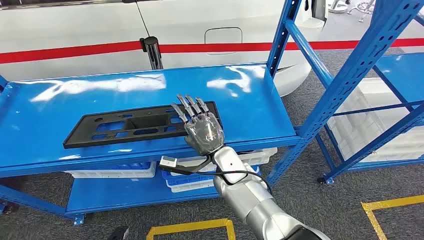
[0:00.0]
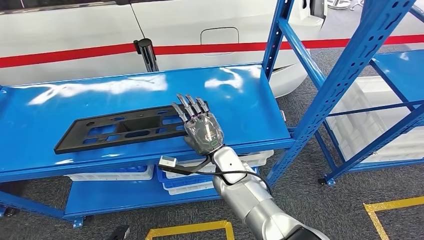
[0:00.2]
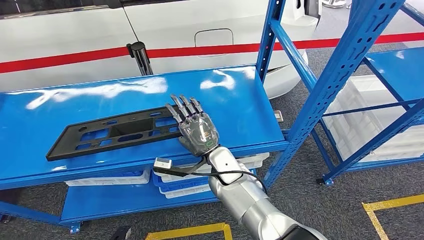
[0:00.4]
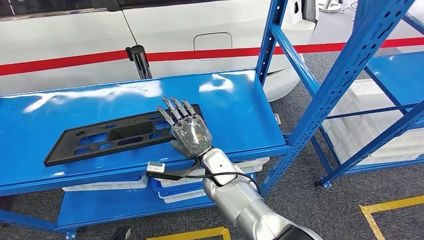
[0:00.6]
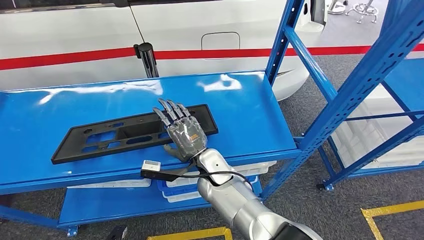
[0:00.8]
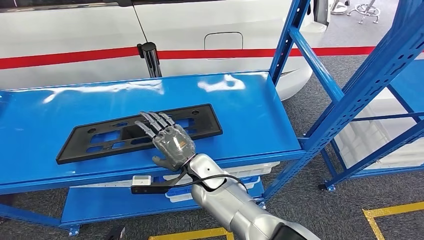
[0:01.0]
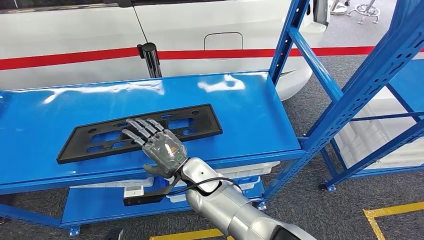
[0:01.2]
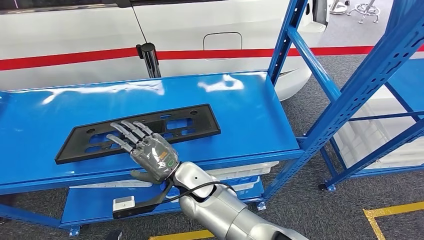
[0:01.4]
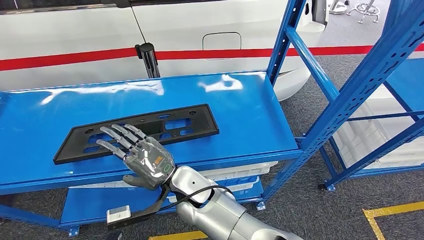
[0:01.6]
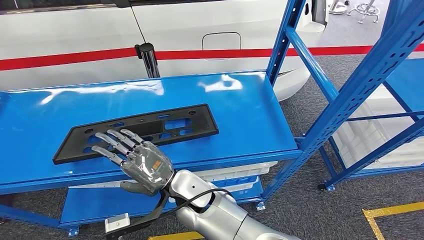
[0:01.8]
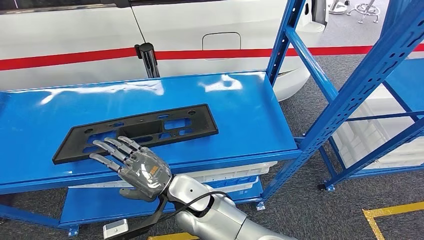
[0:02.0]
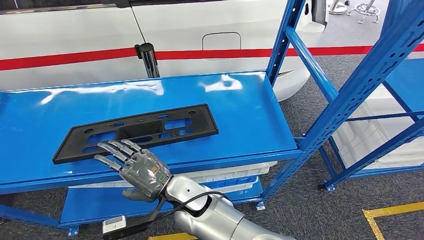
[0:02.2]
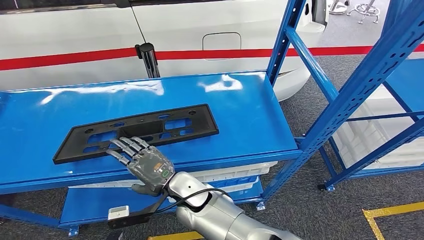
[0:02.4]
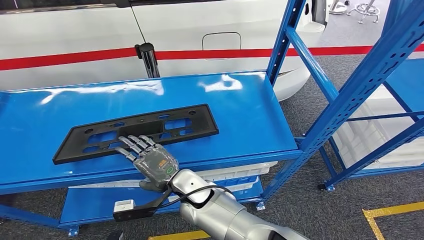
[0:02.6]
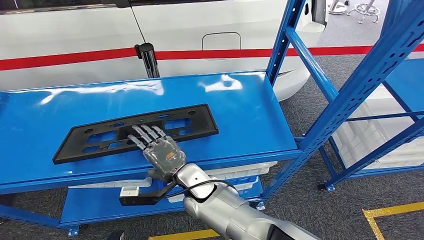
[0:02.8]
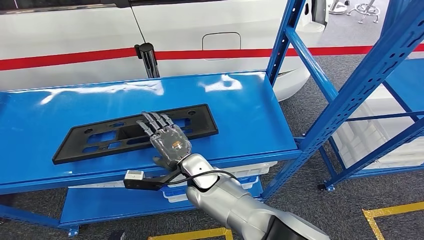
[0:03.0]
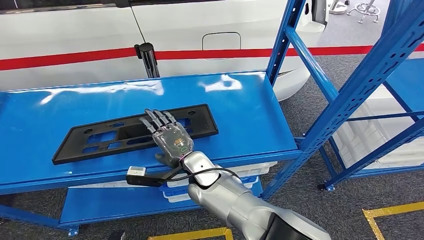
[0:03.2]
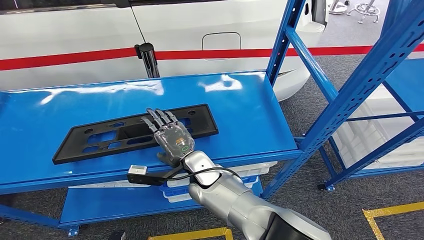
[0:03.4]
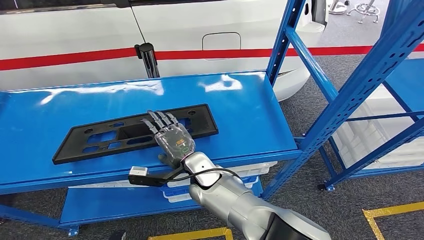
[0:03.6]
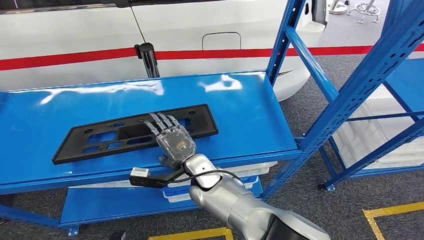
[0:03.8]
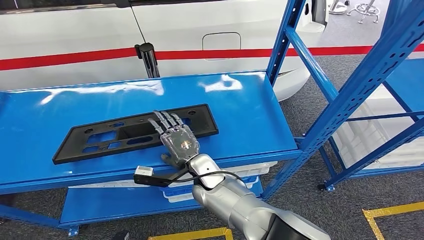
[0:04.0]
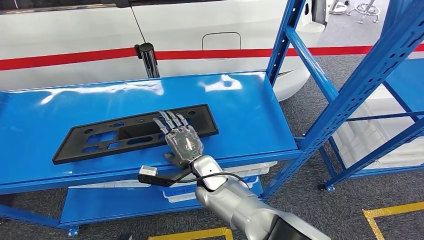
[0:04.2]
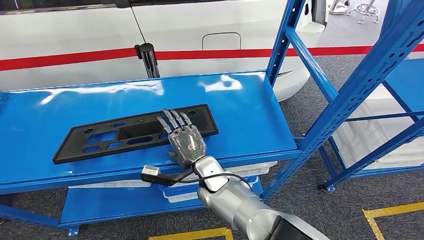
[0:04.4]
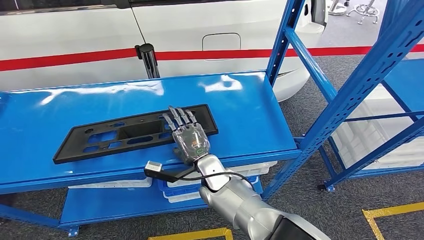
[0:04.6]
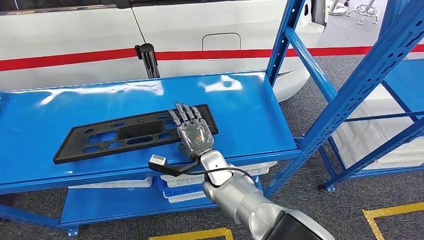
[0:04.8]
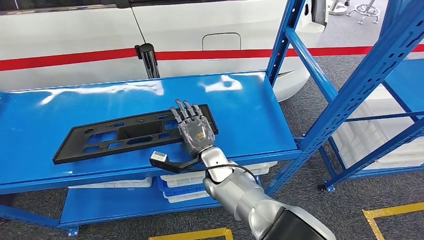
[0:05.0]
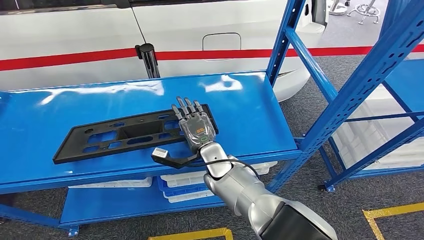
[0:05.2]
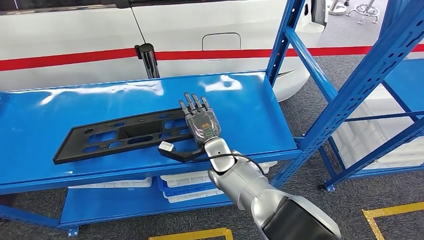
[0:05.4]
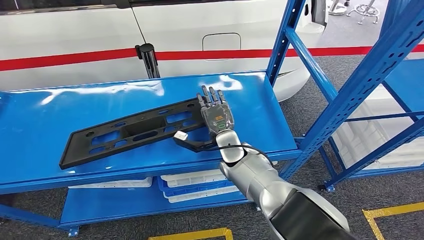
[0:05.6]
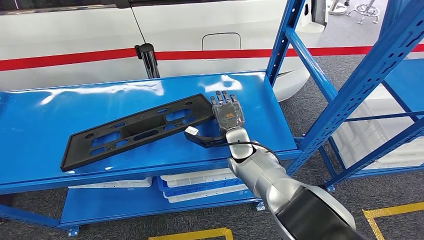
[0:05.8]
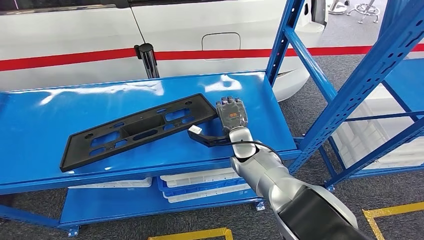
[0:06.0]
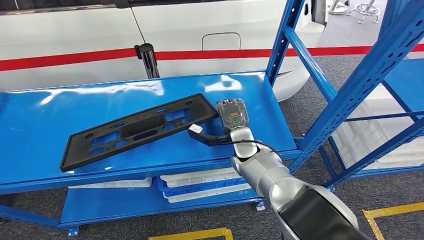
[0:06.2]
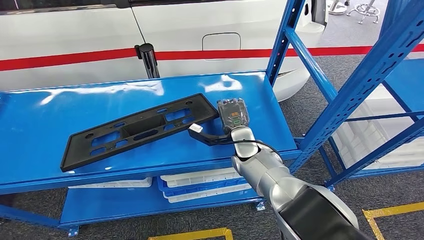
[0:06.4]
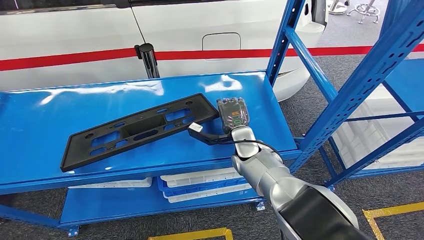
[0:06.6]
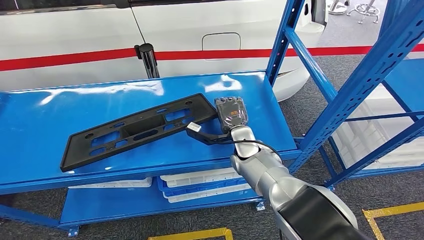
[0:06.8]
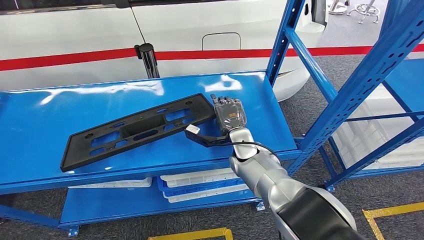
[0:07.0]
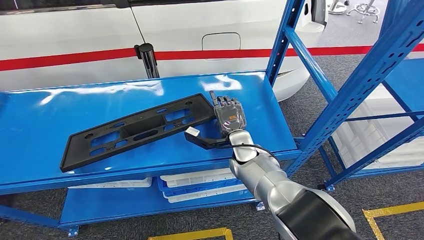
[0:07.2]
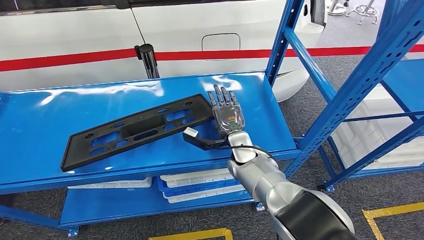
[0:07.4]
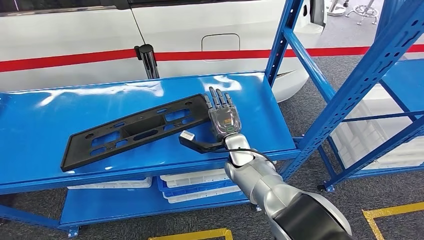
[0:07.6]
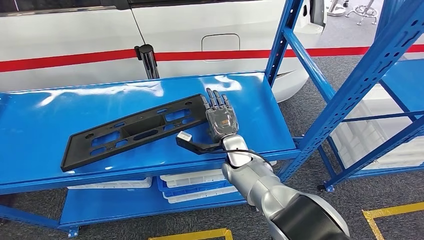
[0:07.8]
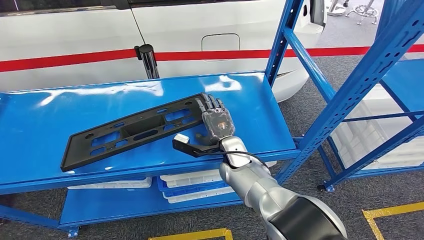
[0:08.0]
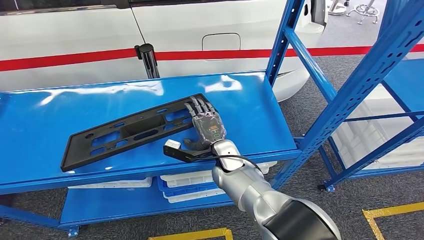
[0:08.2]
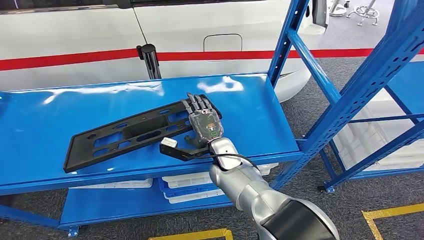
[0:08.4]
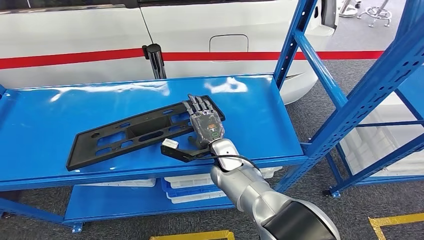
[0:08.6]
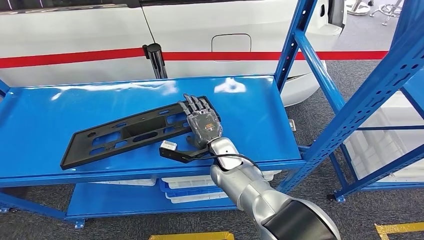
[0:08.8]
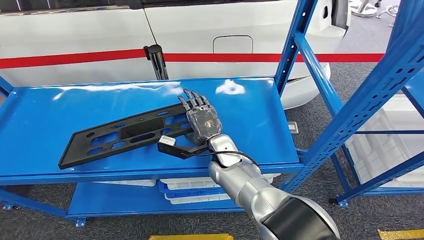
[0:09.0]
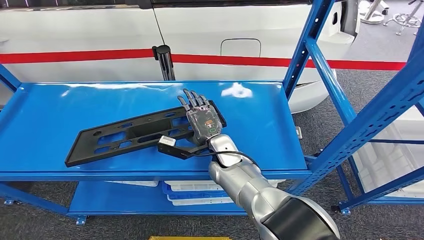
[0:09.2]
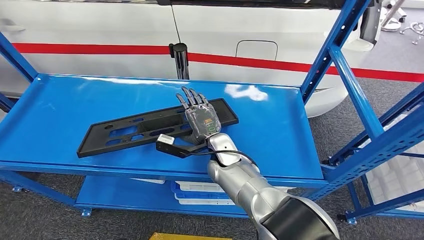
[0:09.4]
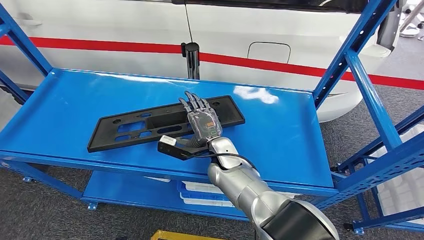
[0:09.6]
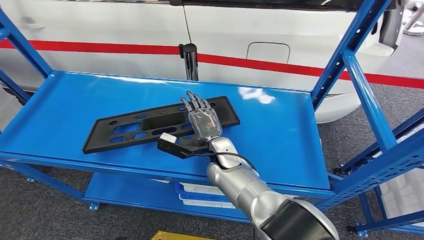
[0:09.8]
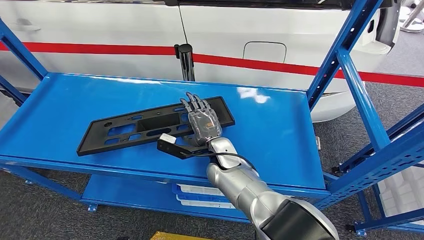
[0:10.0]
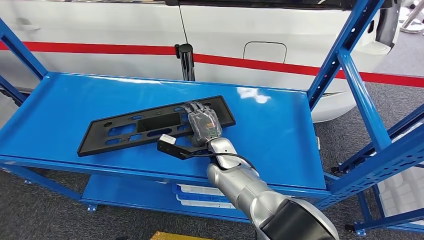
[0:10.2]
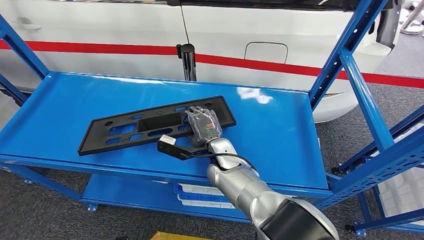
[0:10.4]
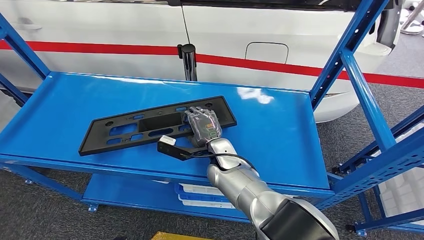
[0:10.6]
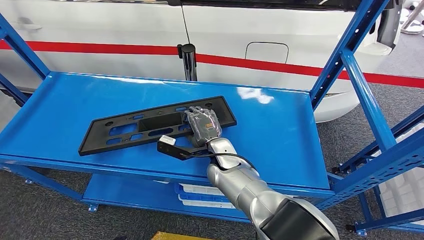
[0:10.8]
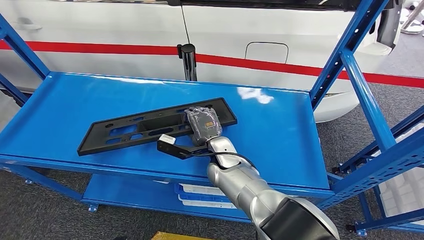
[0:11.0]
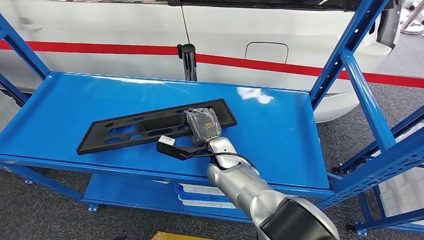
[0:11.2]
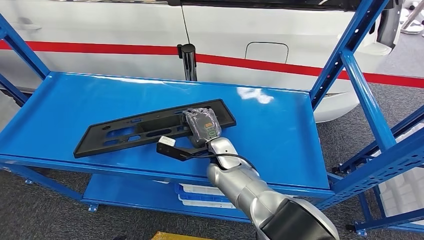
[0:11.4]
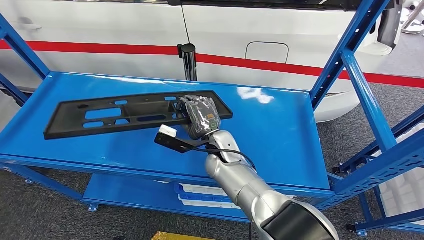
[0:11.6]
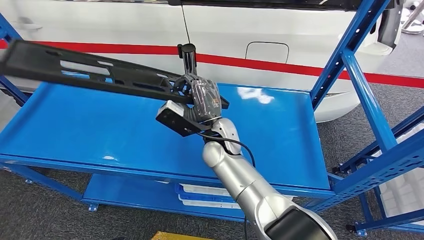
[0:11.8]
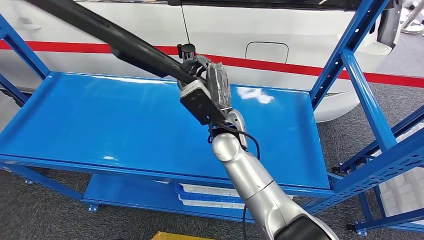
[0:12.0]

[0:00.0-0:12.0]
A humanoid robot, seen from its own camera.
0:03.0 to 0:04.4: The hands move only a little.
0:04.4 to 0:06.0: The right hand travels to the right and forward by roughly 10 cm.
0:06.0 to 0:07.6: There are only small adjustments of the hands.
0:10.4 to 0:12.0: The right hand travels upward by about 10 cm.

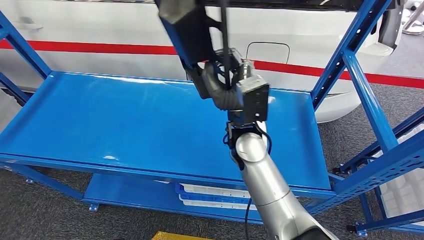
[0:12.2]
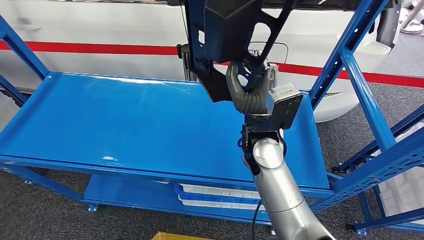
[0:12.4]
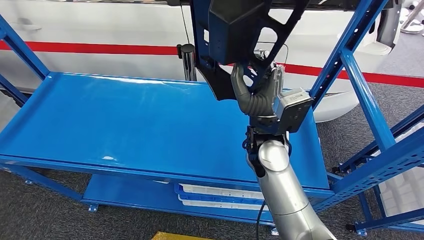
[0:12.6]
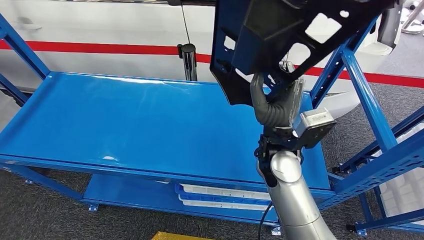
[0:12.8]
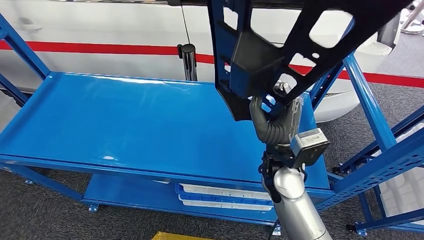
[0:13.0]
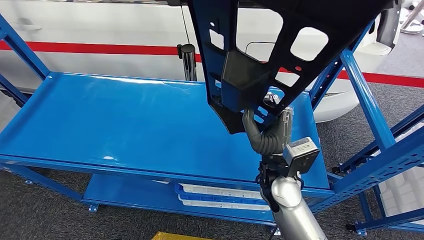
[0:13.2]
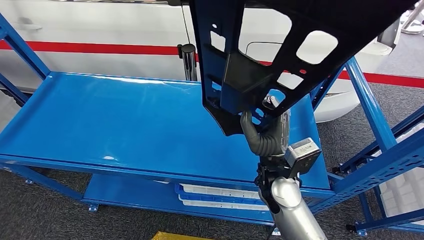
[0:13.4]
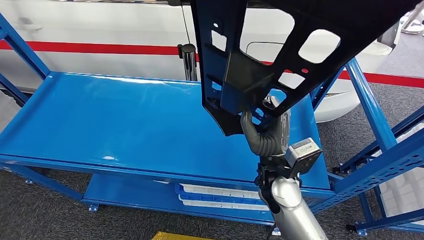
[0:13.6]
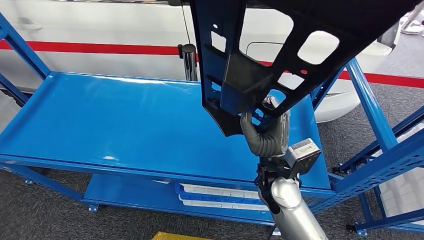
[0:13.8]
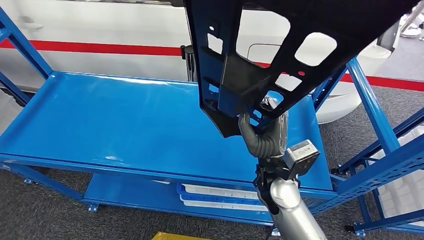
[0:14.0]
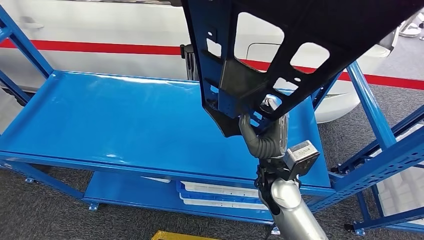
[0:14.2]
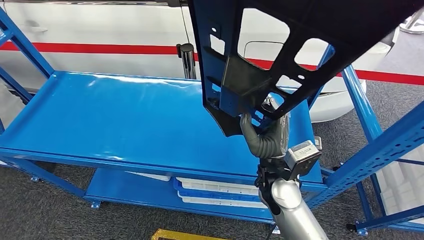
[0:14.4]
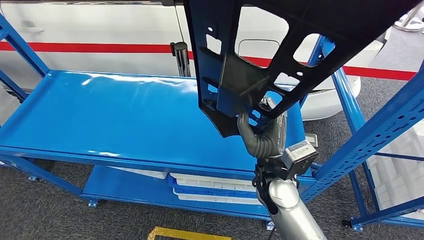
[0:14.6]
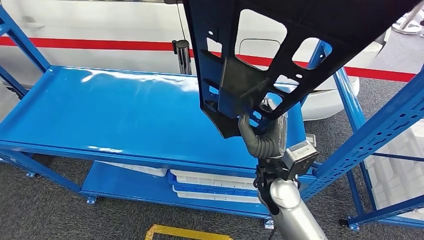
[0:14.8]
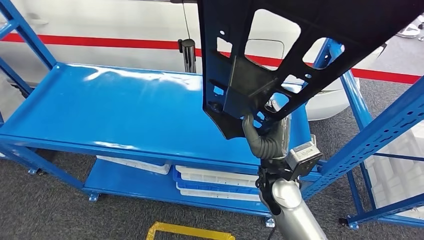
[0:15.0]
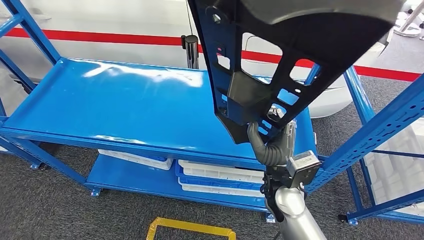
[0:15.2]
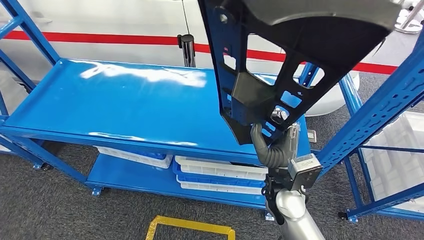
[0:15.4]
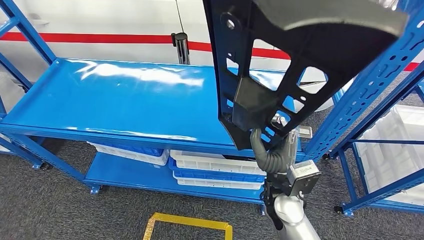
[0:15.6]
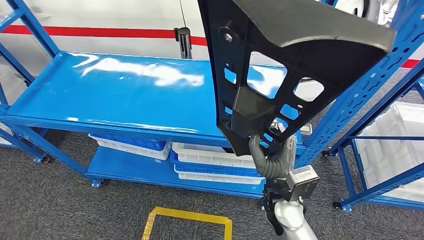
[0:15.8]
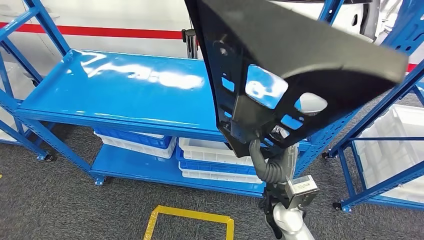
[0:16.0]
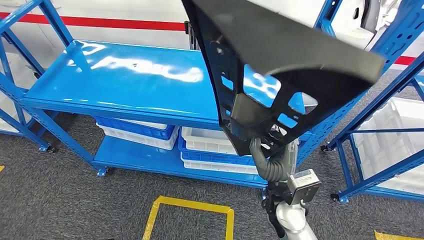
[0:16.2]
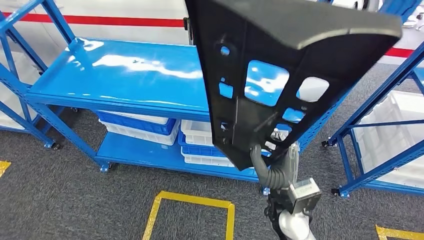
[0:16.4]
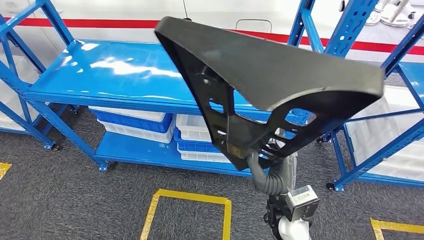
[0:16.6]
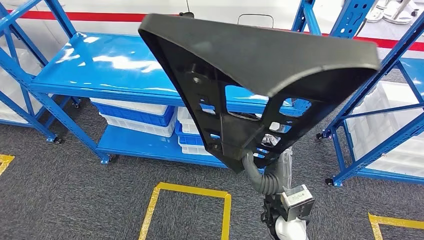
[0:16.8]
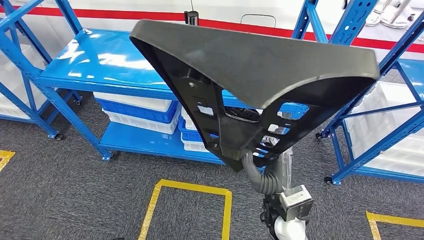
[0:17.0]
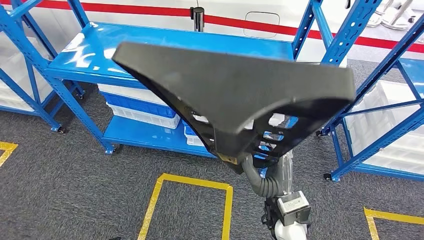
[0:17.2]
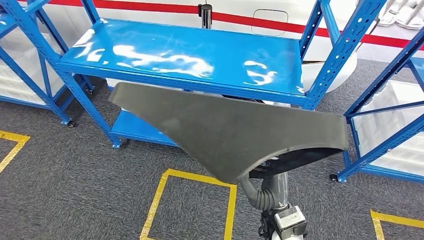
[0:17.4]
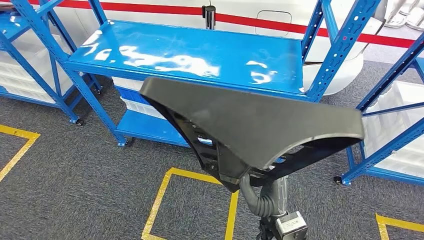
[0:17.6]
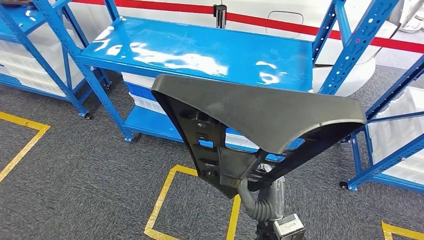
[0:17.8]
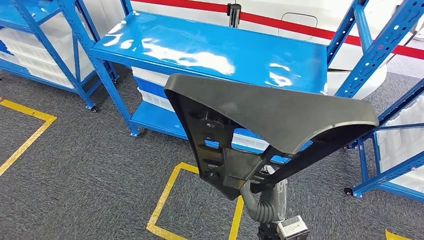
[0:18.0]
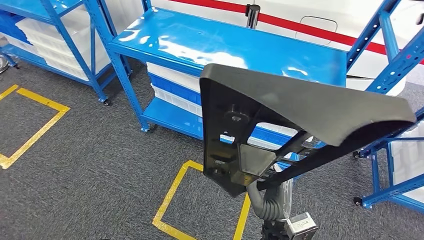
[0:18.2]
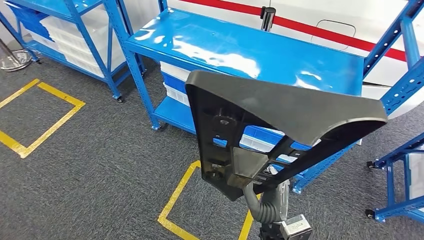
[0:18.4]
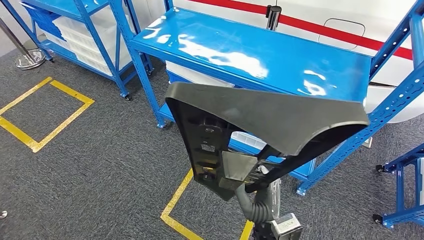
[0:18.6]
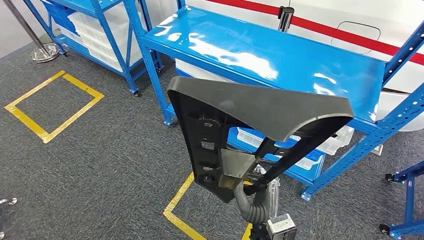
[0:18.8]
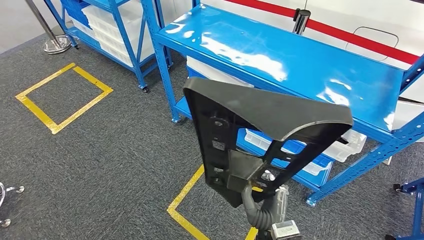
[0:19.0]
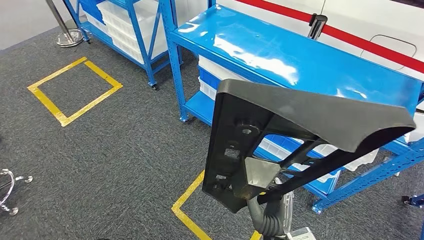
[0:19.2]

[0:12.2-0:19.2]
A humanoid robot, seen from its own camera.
Step, 0:12.2 to 0:16.2: Pick up the large material from the shelf.
